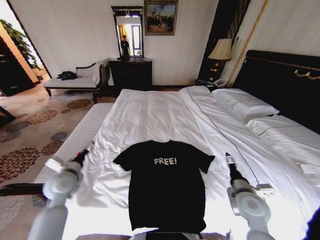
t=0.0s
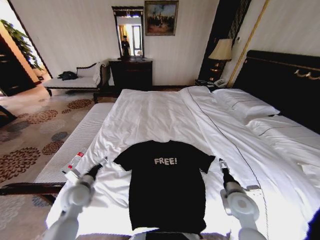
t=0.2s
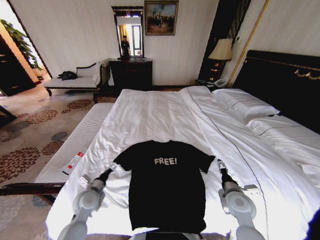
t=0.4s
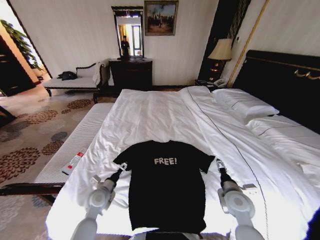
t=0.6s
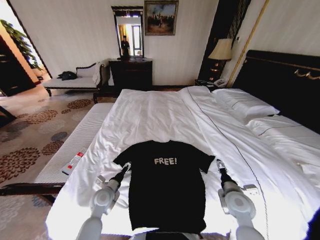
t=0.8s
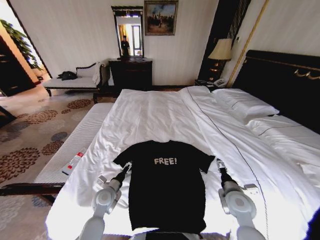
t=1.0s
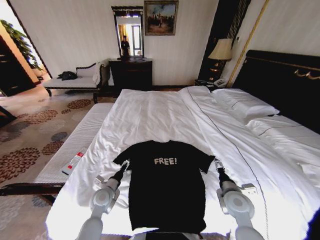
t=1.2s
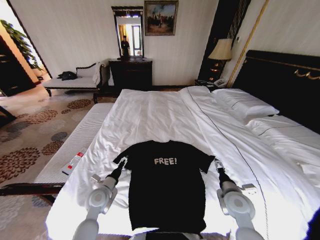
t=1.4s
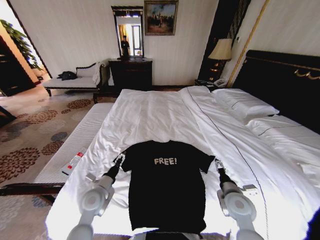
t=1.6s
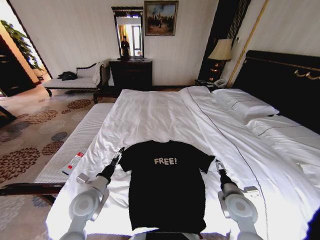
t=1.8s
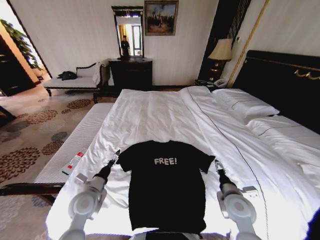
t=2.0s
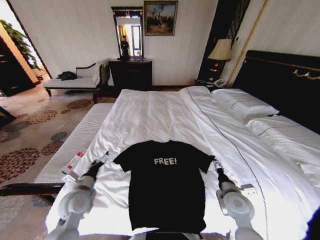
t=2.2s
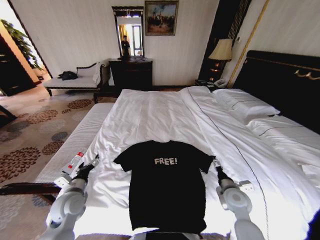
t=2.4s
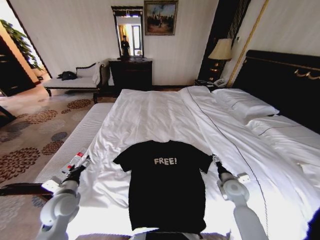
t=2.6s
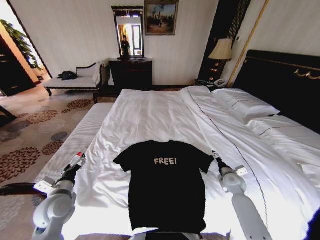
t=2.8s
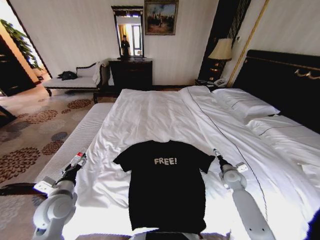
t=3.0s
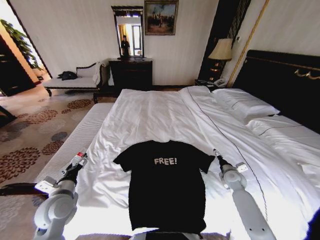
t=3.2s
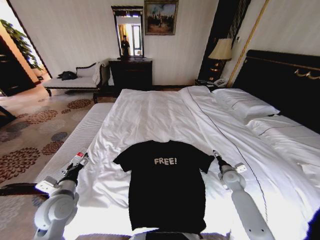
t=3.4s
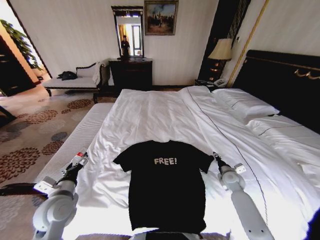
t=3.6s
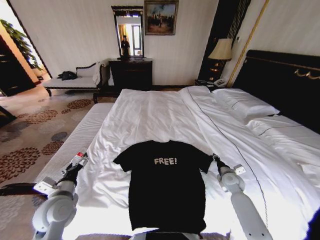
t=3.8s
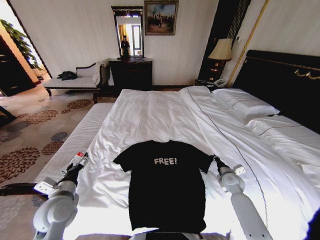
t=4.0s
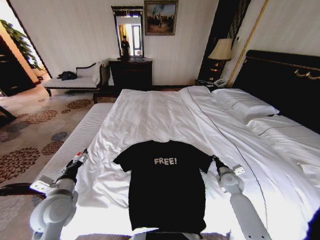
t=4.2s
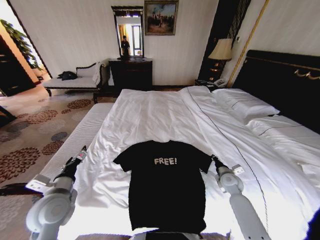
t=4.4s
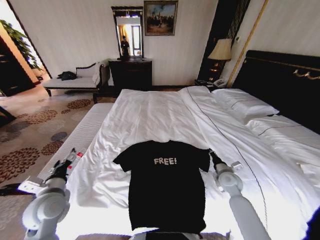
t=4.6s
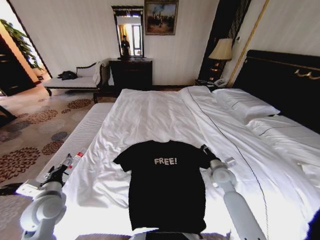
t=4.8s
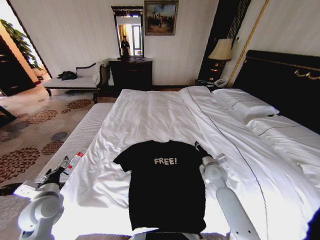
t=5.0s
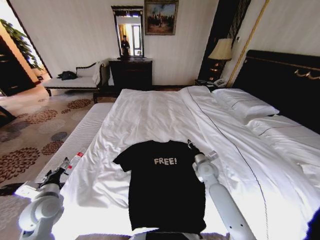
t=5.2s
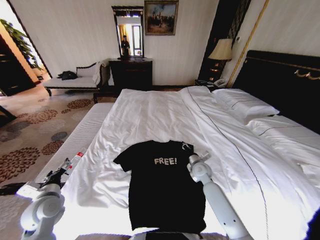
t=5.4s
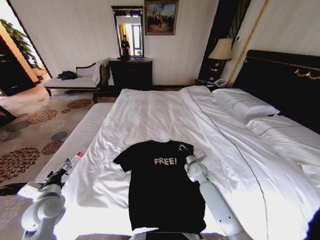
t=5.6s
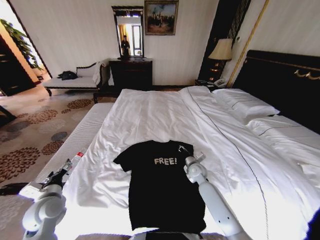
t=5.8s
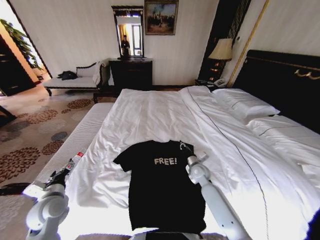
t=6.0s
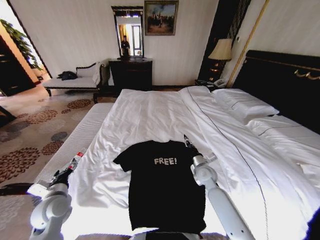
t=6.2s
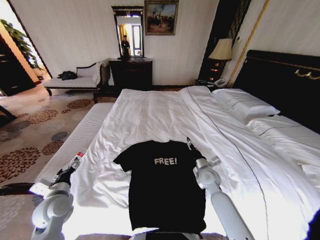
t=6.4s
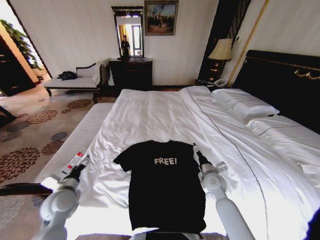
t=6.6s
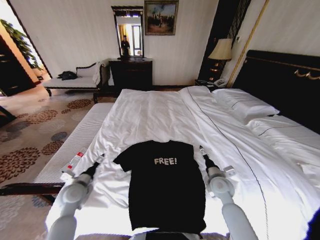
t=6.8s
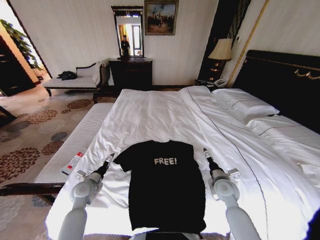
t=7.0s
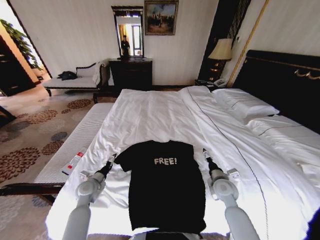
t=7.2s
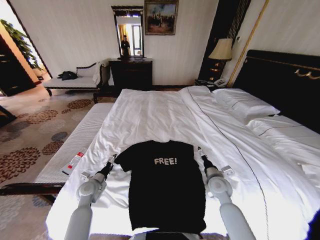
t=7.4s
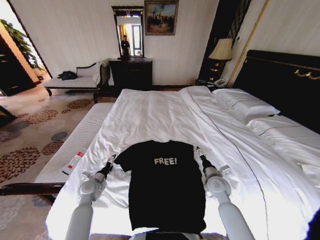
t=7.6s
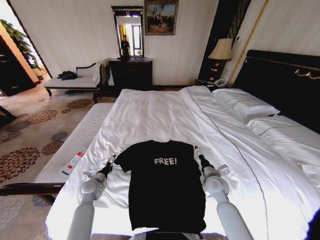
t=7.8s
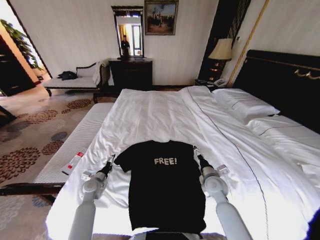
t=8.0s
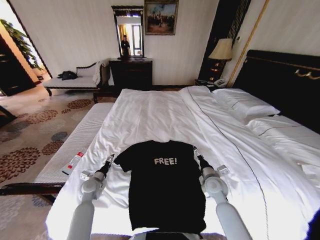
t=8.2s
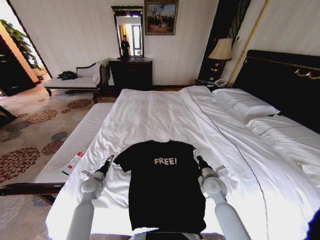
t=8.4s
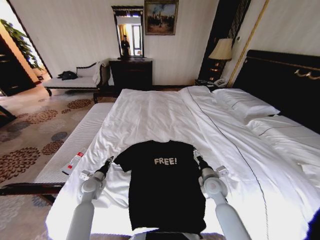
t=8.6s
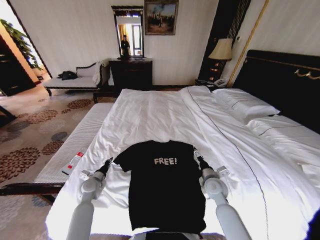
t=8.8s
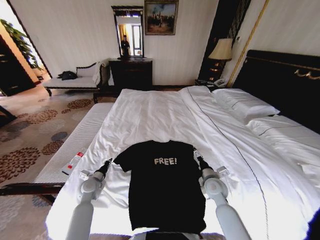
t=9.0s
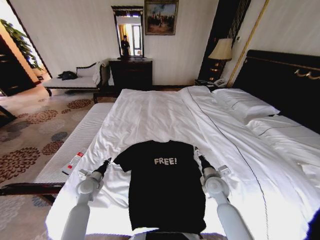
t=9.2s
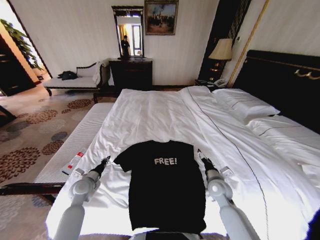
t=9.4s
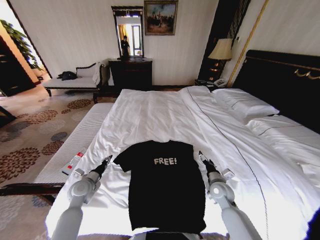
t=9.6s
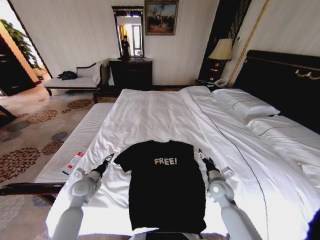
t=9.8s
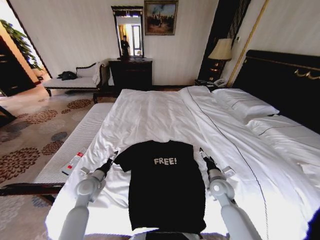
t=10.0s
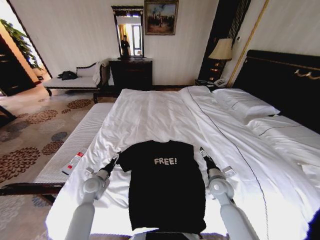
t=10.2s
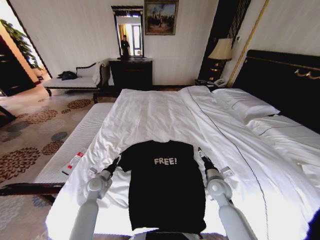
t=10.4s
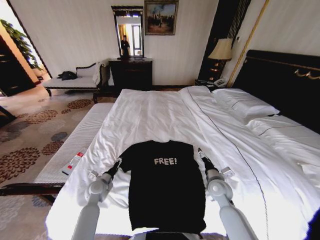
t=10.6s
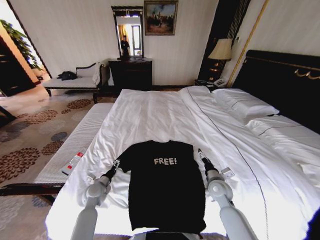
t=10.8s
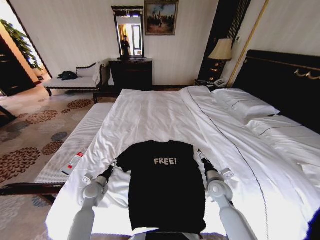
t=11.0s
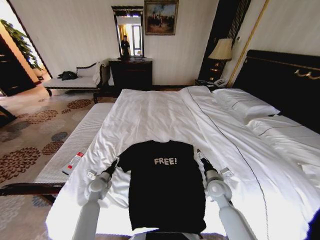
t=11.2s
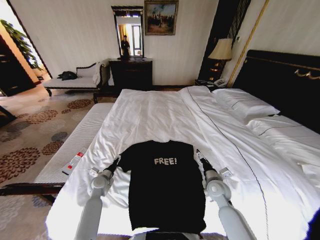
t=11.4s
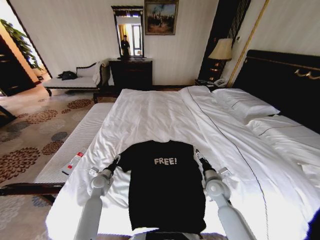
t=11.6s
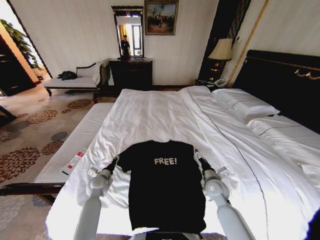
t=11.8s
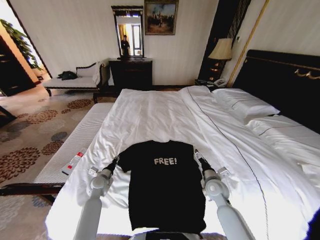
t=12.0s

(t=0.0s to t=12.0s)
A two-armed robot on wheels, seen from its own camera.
Task of the whole recording: Fold the clothes on the bed.
t=0.0s - t=1.6s: The left gripper moves to the right and downward, approximately 10 cm.
t=1.6s - t=3.0s: The left gripper heads to the left, covering approximately 10 cm, while the right gripper shifts about 20 cm forward, to the right and downward.
t=3.0s - t=4.4s: The right gripper closes up; the left gripper changes place by about 5 cm.
t=4.4s - t=6.0s: The right gripper heads to the left, covering approximately 15 cm; the left gripper shifts about 10 cm downward and to the left.
t=6.0s - t=7.6s: The left gripper is displaced downward, forward and to the right by approximately 15 cm, while the right gripper shifts roughly 10 cm backward, and opens up.
t=7.6s - t=9.0s: The left gripper closes its fingers.
t=9.0s - t=10.4s: The left gripper opens.
t=10.4s - t=12.0s: The left gripper closes its fingers.

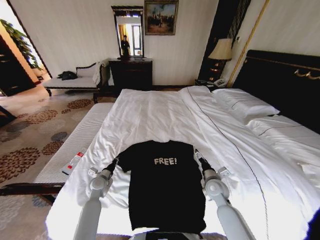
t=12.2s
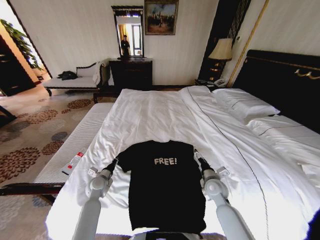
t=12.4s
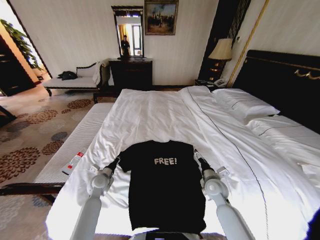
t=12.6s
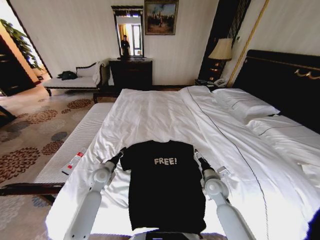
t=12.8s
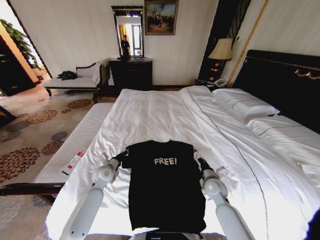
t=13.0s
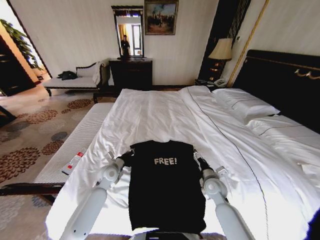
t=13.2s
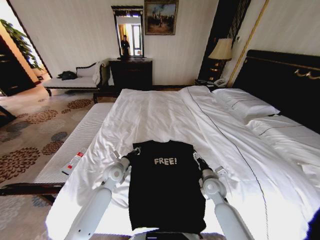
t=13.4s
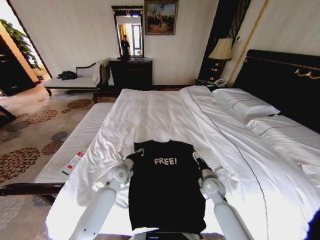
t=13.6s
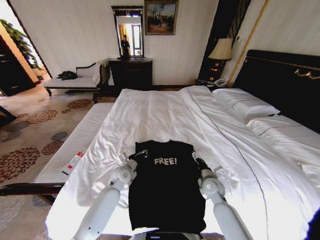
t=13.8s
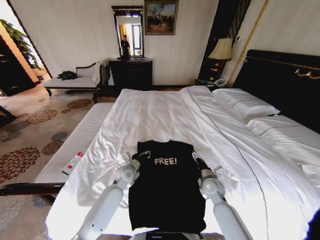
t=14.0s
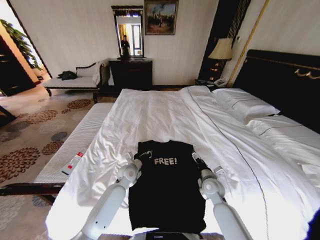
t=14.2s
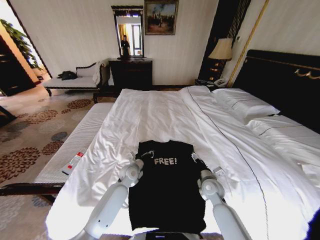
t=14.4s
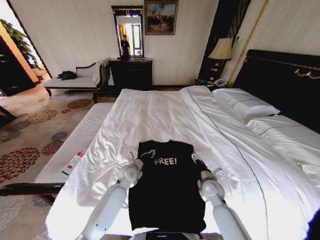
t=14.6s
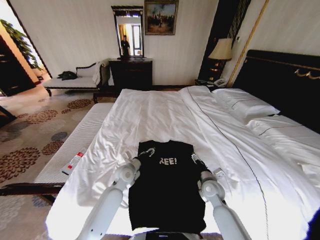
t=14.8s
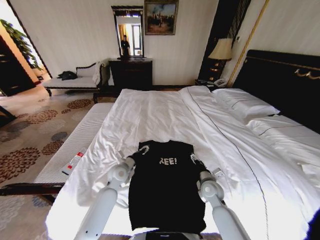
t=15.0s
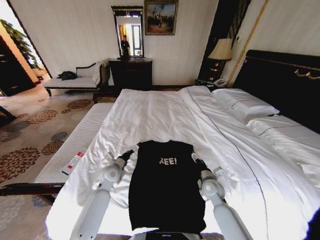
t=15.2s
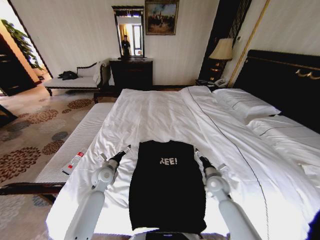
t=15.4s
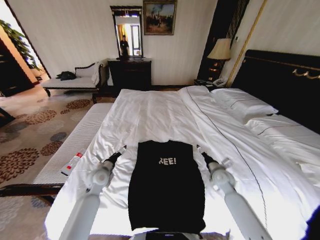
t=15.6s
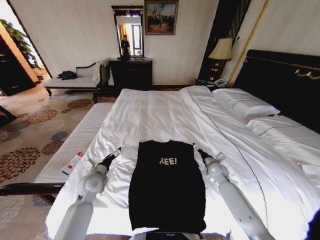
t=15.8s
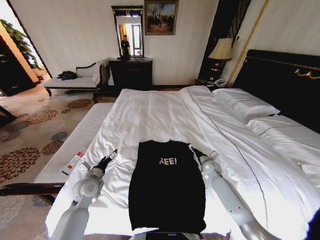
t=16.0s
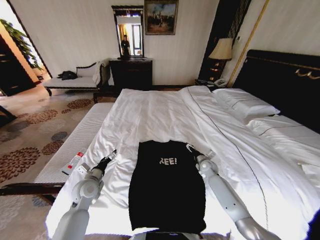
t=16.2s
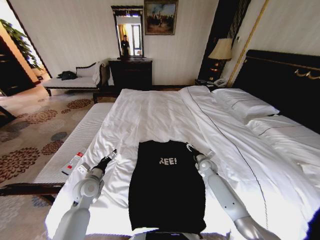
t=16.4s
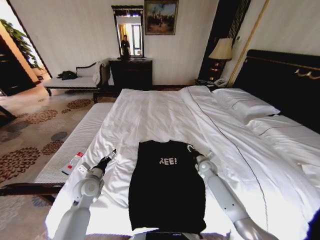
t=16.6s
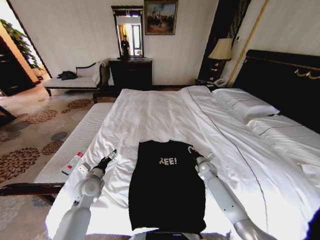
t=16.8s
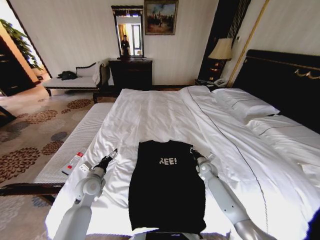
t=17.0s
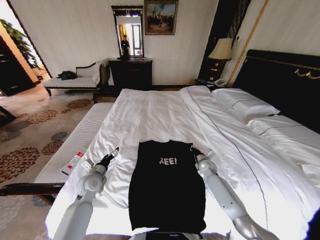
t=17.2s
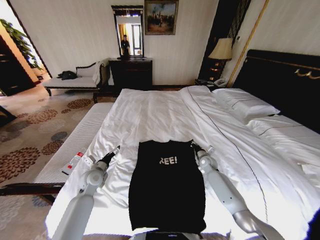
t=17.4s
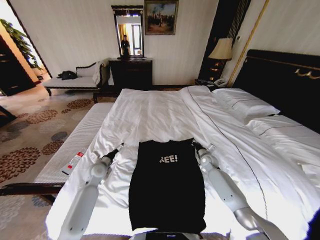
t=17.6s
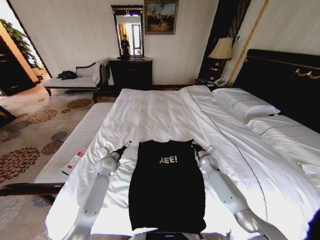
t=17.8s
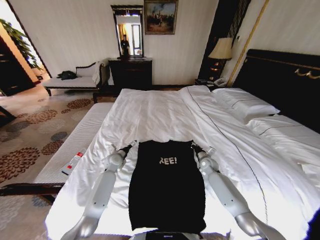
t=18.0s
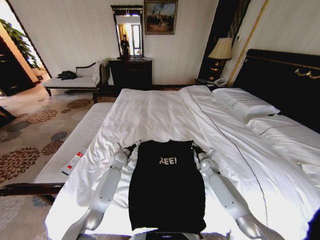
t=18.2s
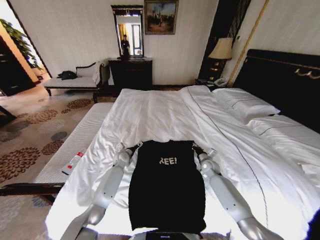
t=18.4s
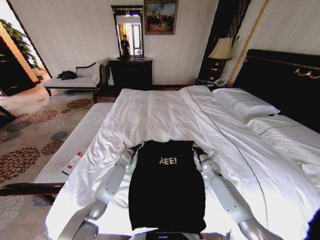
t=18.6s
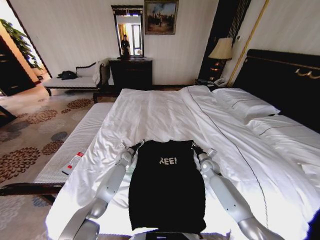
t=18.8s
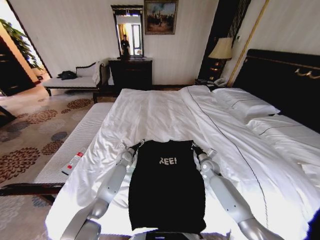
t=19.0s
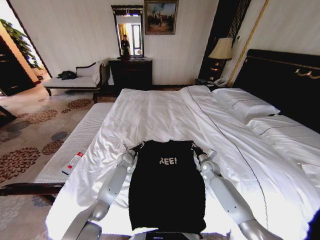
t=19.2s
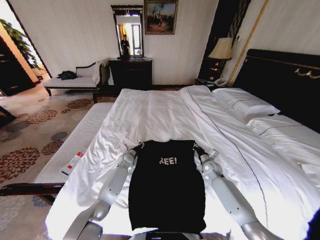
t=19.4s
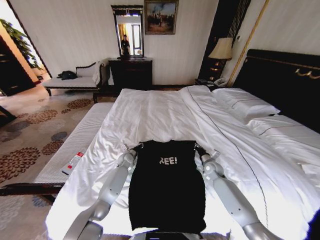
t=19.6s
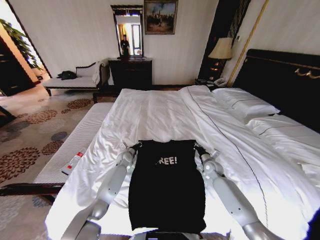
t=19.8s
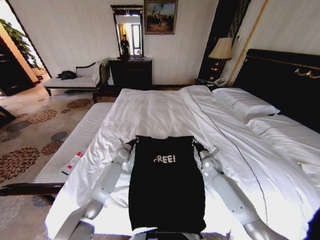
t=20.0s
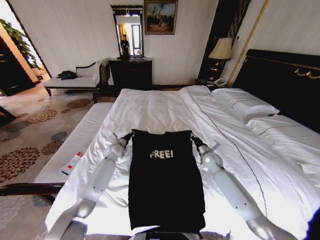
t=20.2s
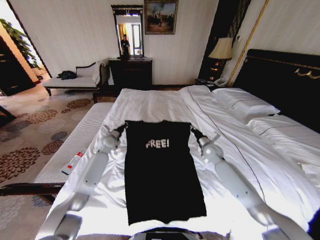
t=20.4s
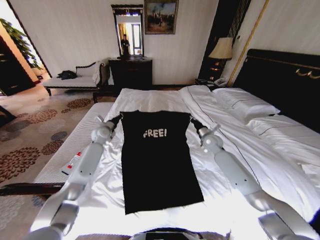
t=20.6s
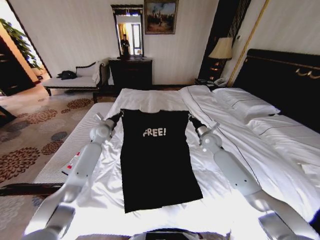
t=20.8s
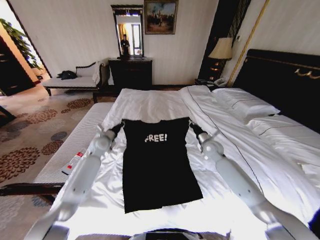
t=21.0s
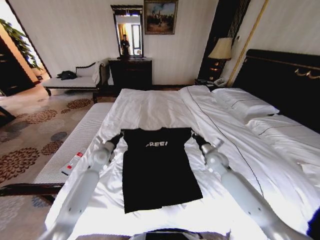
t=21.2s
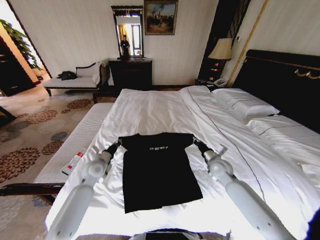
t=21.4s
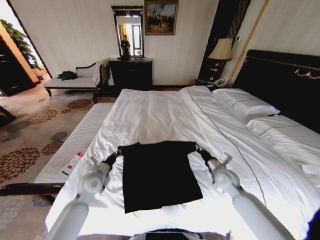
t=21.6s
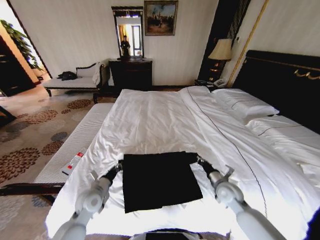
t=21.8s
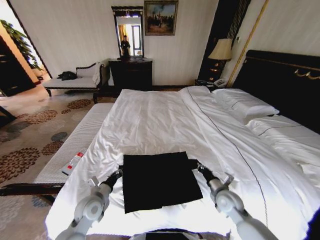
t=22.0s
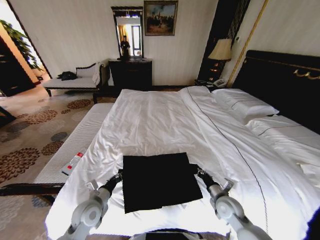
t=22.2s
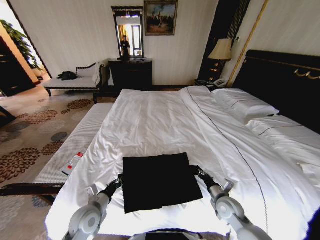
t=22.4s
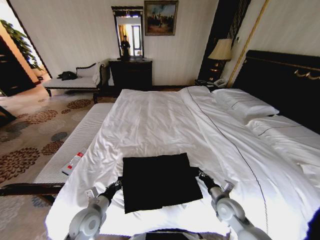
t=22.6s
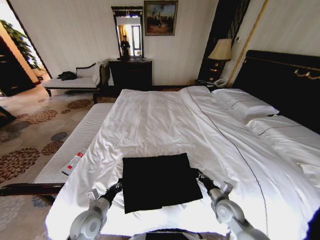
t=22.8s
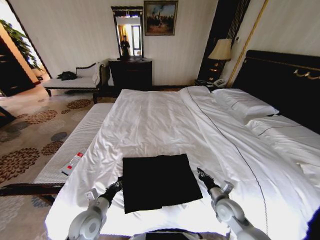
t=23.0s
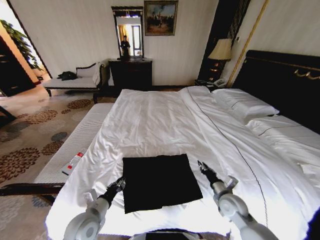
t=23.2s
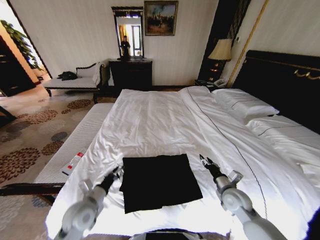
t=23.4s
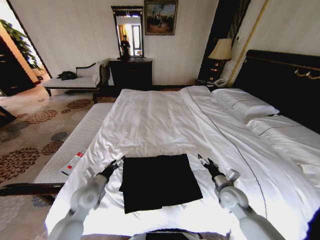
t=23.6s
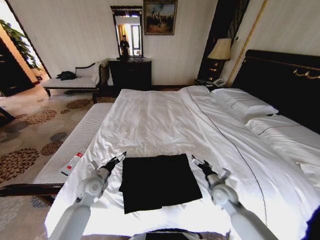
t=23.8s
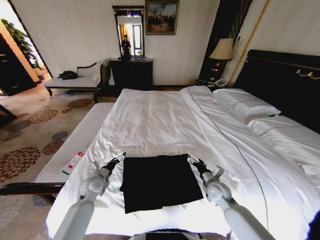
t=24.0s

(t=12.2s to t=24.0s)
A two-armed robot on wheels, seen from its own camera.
Task of the whole recording: Fold the clothes on the bed.
t=12.2s - t=13.6s: The left gripper travels to the right and upward by about 10 cm.
t=13.6s - t=15.2s: The left gripper opens its fingers.
t=15.2s - t=16.6s: The left gripper heads to the left and backward, covering roughly 10 cm. The right gripper is displaced forward by some 15 cm, and closes its fingers.
t=16.6s - t=18.2s: The left gripper travels forward and to the right by about 20 cm. The right gripper closes.
t=18.2s - t=19.6s: The left gripper changes place by approximately 5 cm, and closes its fingers.
t=19.6s - t=21.0s: The right gripper heads upward, covering approximately 15 cm, while the left gripper moves upward and to the left, approximately 20 cm.
t=21.0s - t=22.6s: The right gripper shifts roughly 25 cm backward and downward, while the left gripper travels backward by some 30 cm.
t=22.6s - t=24.0s: The left gripper heads forward, covering some 15 cm, and opens its fingers. Meanwhile the right gripper heads forward, covering roughly 5 cm, and opens up.
